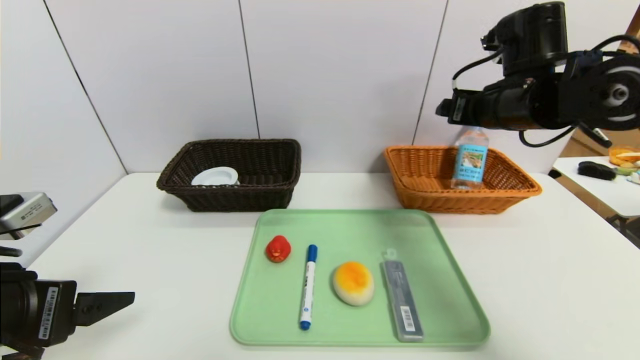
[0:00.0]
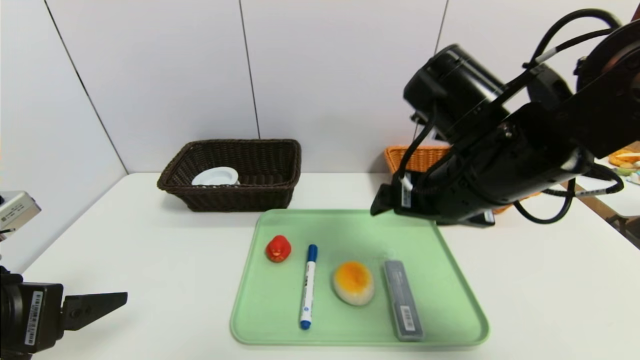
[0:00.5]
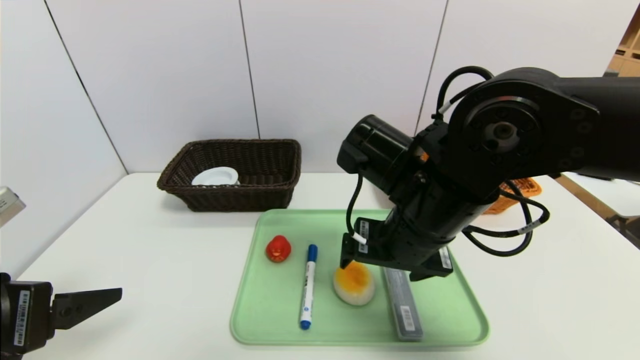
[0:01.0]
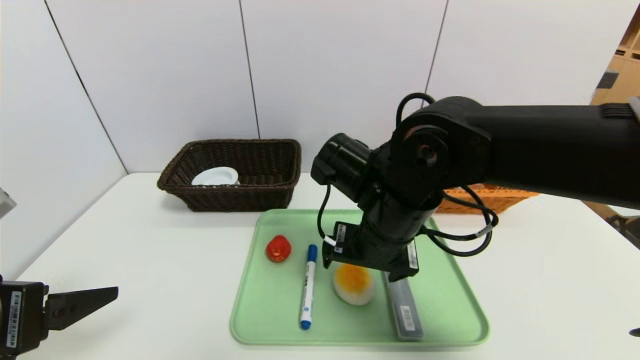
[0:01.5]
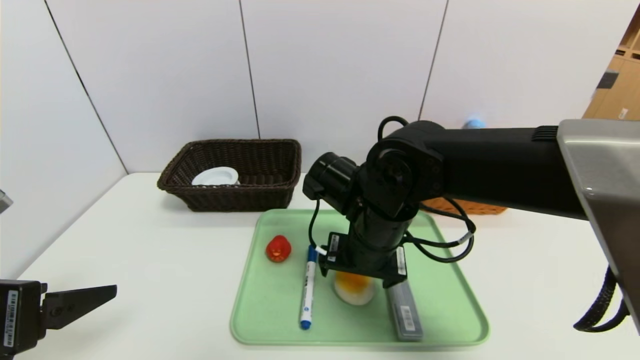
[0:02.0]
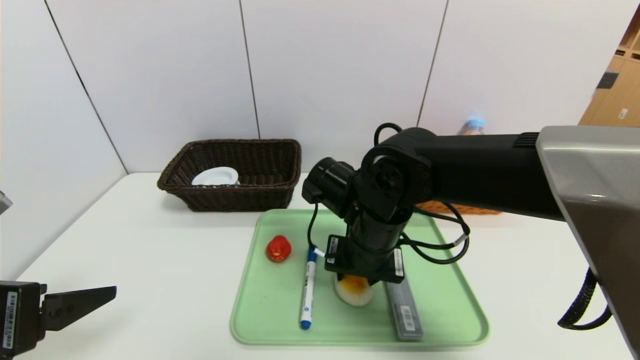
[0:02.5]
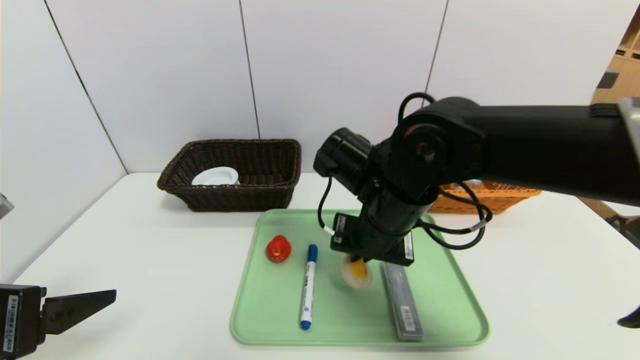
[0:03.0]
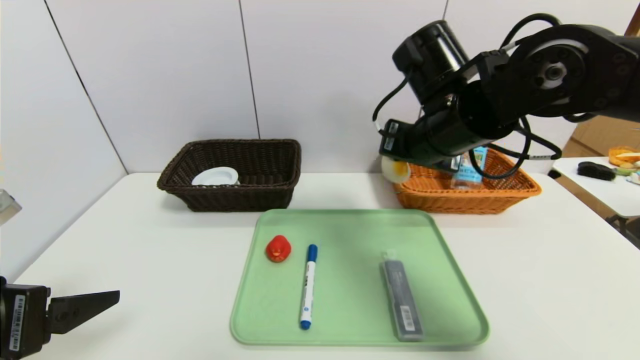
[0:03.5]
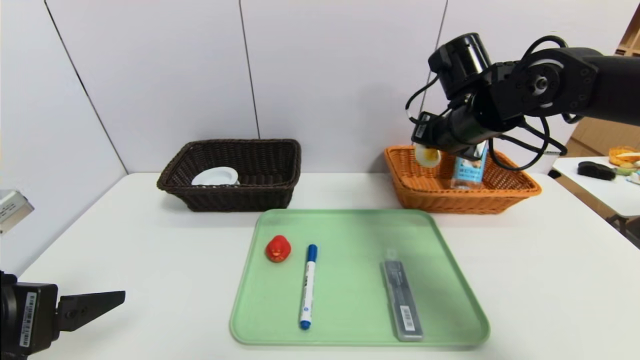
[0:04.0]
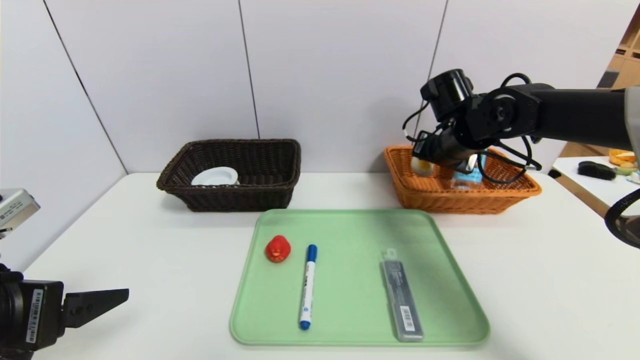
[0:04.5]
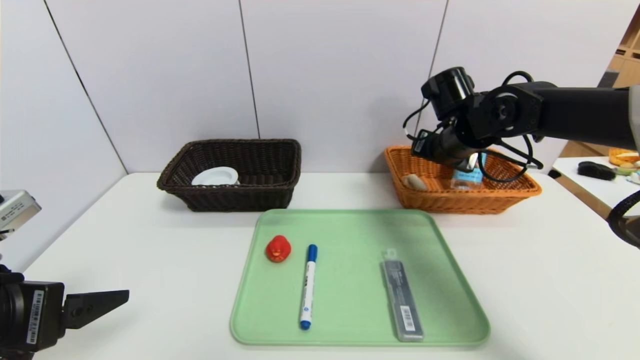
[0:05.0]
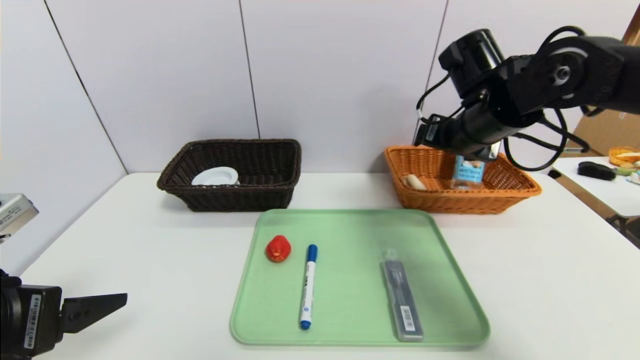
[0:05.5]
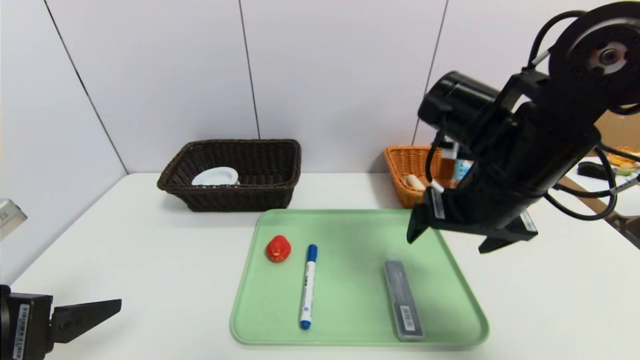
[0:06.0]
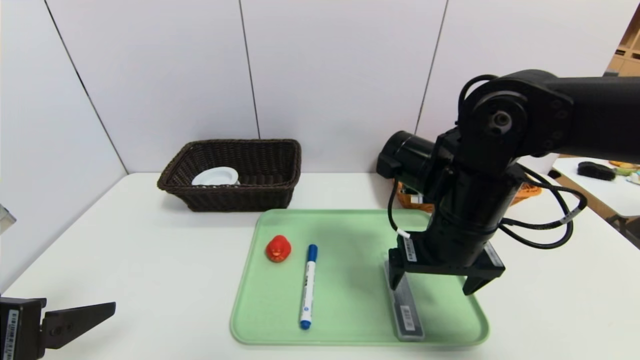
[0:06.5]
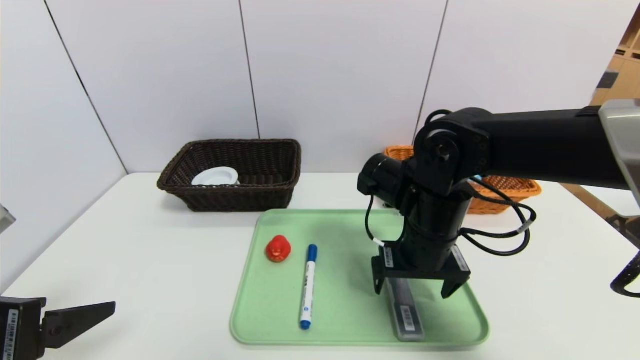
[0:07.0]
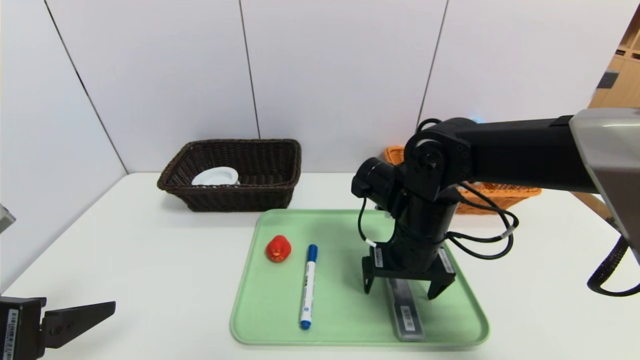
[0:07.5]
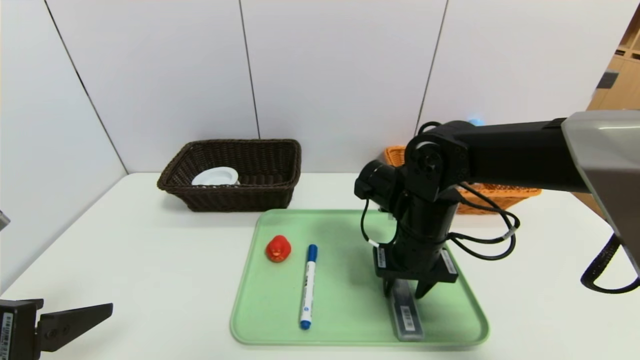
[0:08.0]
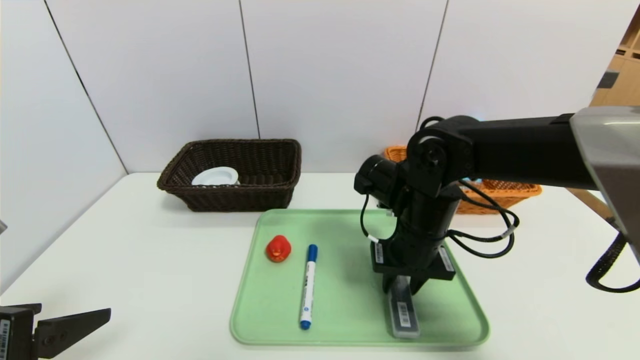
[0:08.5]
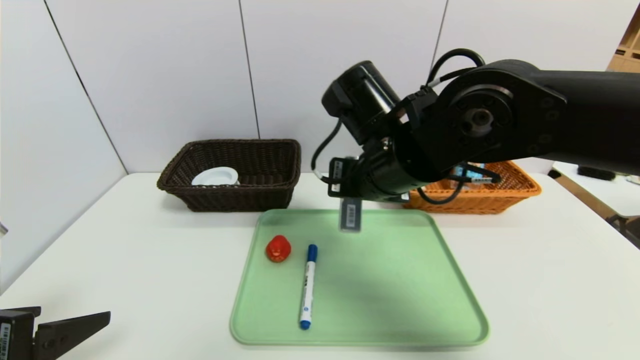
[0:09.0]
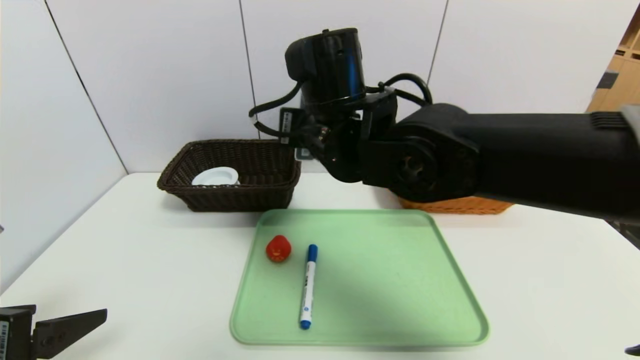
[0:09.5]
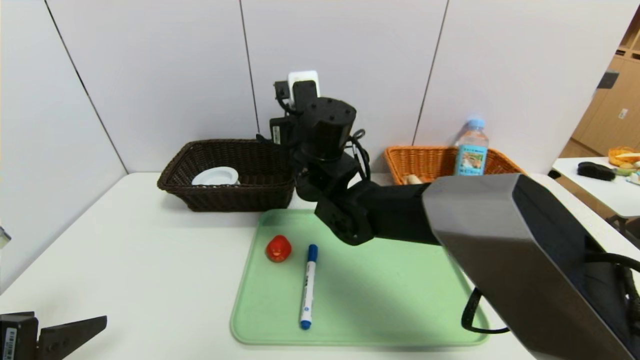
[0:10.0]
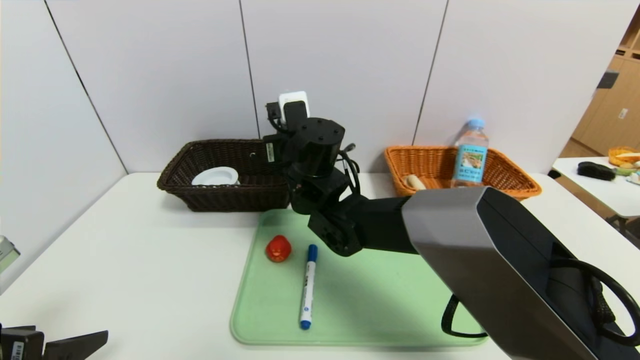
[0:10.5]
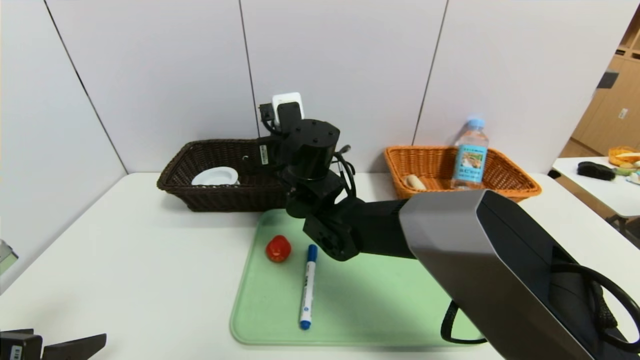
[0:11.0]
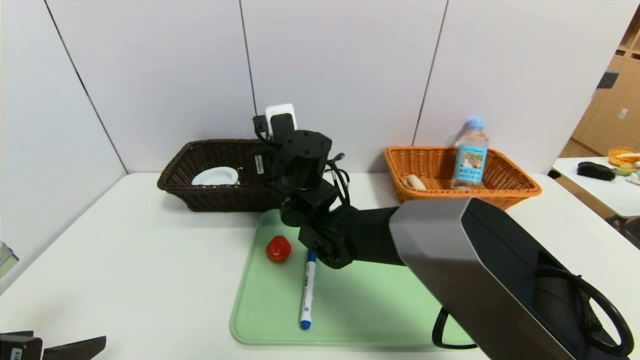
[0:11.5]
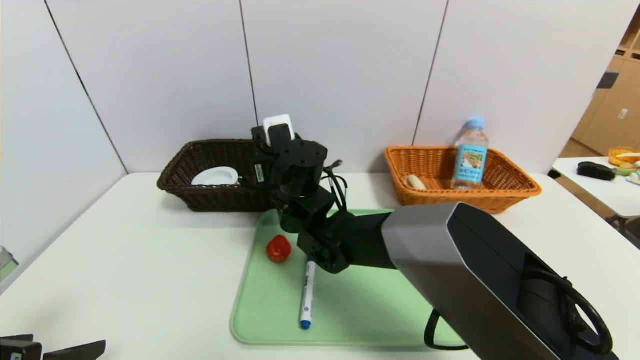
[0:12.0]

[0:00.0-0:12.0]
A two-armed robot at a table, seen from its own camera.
Task of the whole recording: place the food in the right basket with the right gripper, and place the non food items in the left basket with the left gripper.
Step, 0:00.0 to 0:05.0: Grasp the round bread and put it in the right basket.
0:00.0 to 0:02.0: The right gripper is displaced to the left and downward by about 20 cm.
0:02.0 to 0:04.0: The right gripper goes about 20 cm to the right, forward and upward, and closes.
0:04.0 to 0:06.0: The right gripper shifts roughly 10 cm backward, and opens.
0:06.0 to 0:08.0: The right gripper is displaced downward by approximately 10 cm, and closes its fingers.
0:08.0 to 0:10.0: The right gripper shifts some 15 cm to the left, forward and upward.
0:10.0 to 0:12.0: The right gripper heads downward, covering roughly 5 cm, and opens up.

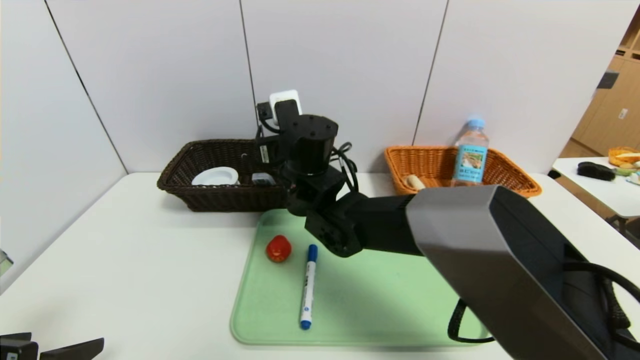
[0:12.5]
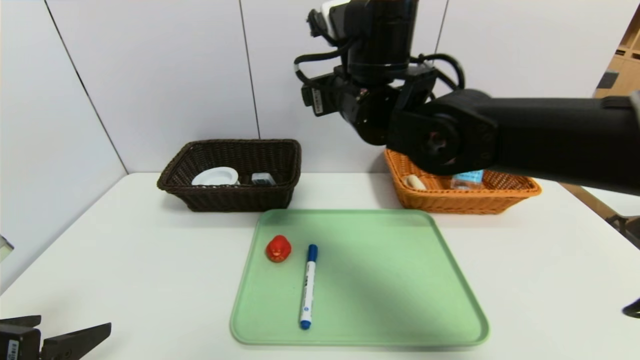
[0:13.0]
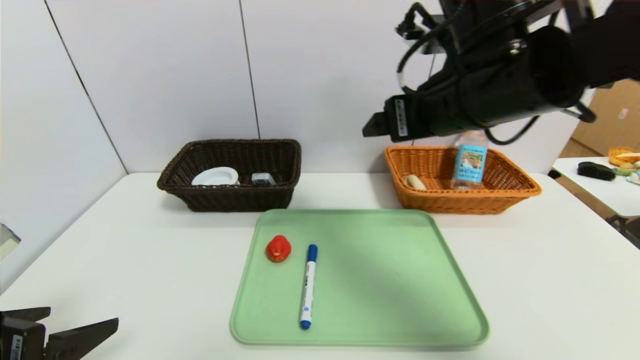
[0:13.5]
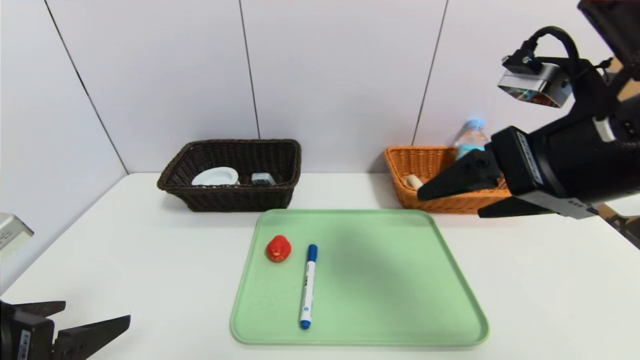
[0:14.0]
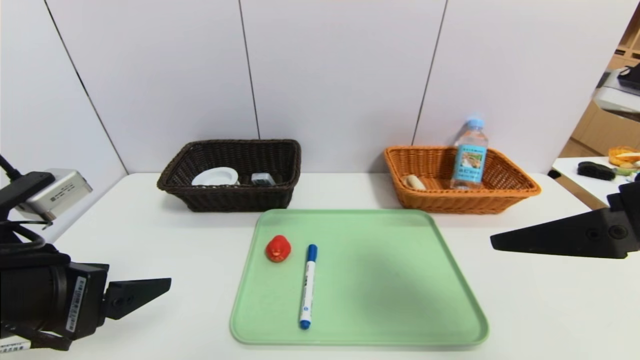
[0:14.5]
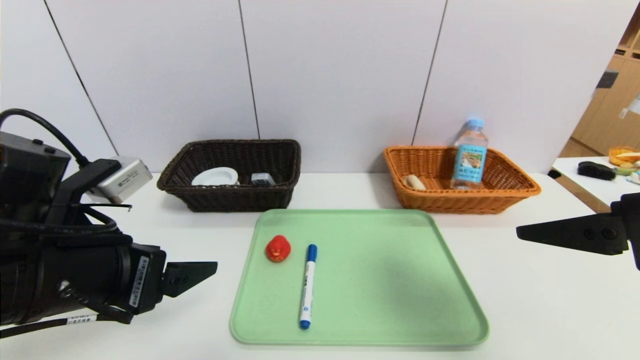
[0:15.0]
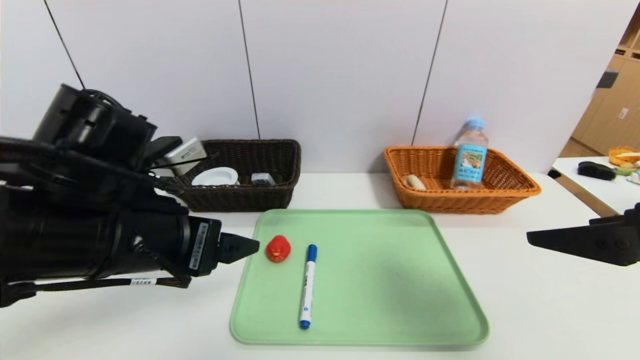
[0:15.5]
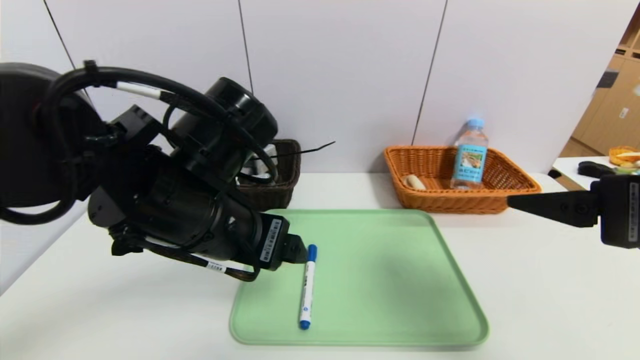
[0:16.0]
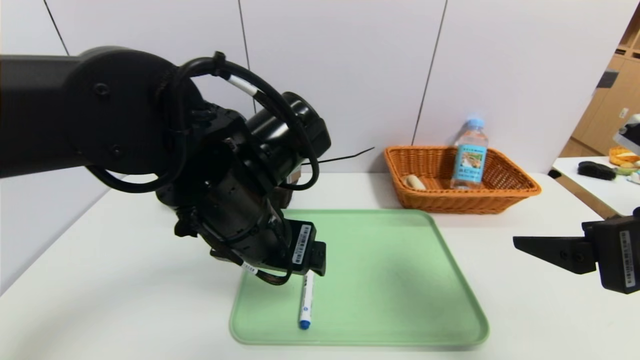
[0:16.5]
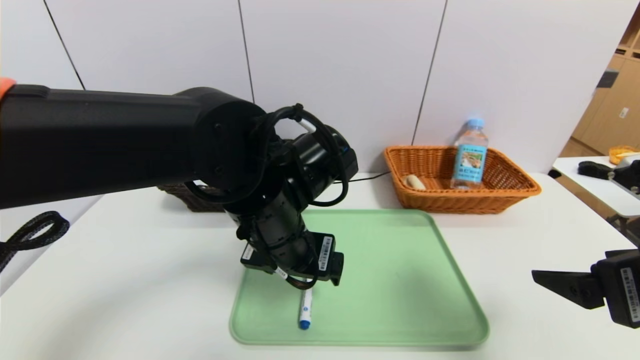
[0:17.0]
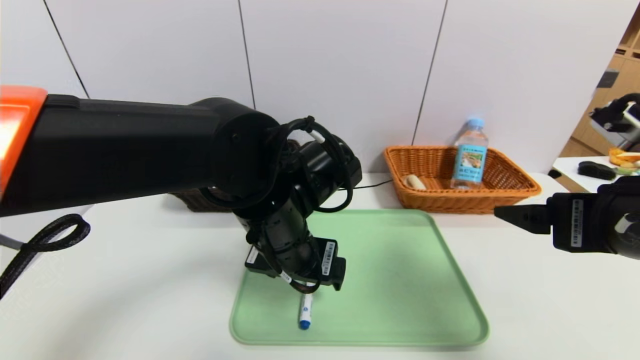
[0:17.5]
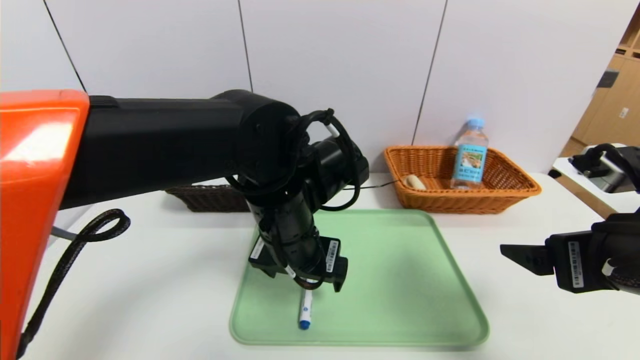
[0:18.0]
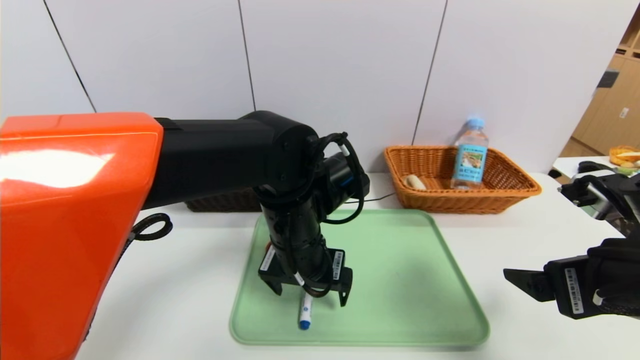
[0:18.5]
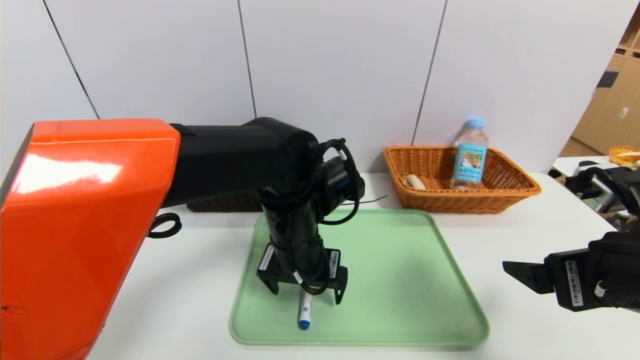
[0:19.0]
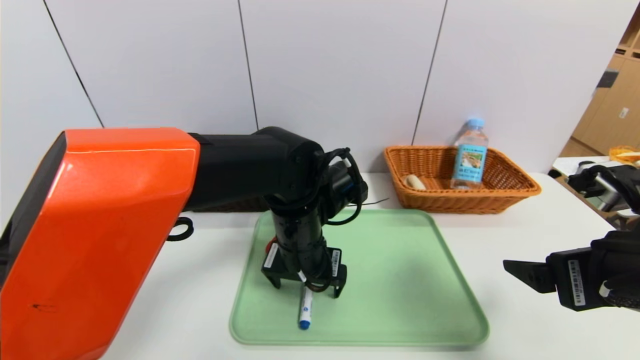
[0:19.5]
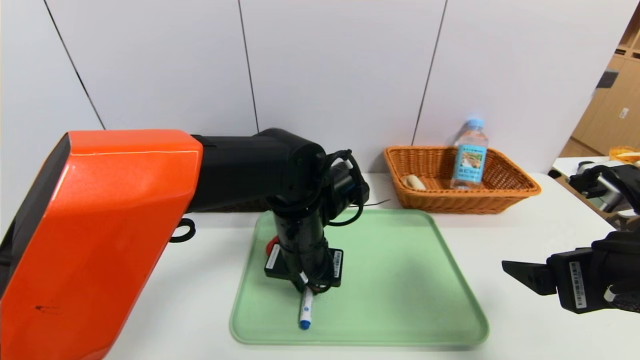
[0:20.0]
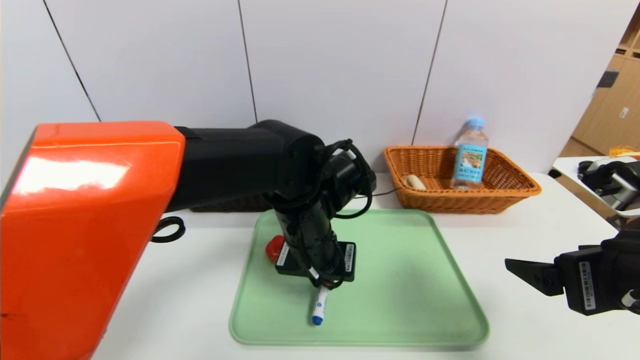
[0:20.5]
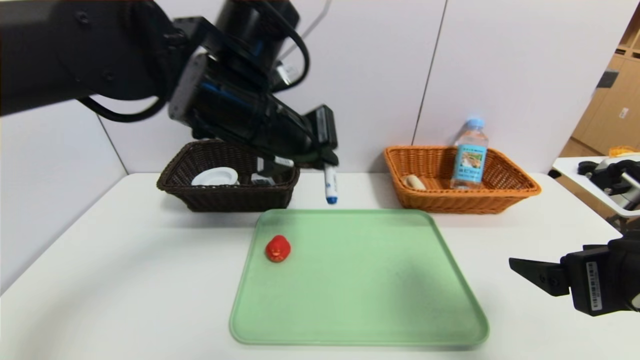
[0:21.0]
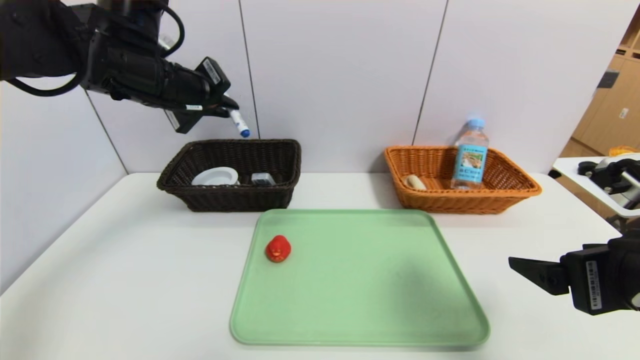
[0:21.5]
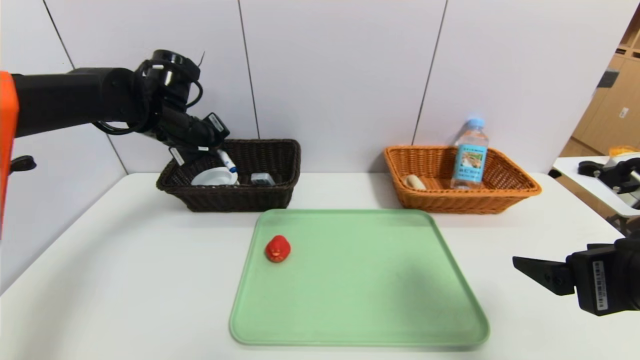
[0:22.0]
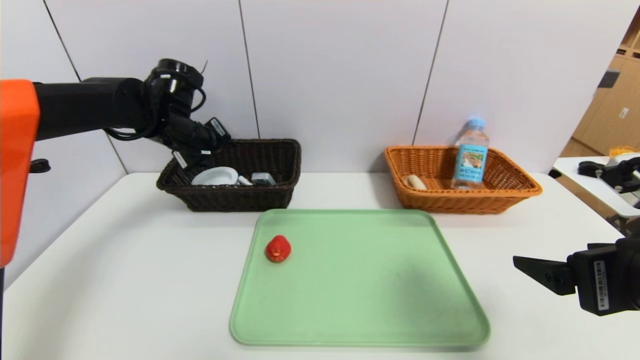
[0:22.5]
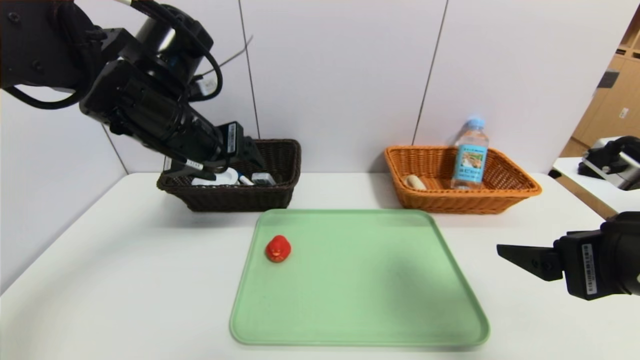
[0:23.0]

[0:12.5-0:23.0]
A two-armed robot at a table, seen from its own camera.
Task of the whole recording: place the food in the right basket with the right gripper, and place the non food items in the left basket with the left gripper.
0:12.5 to 0:14.5: The right gripper is displaced to the right and backward by approximately 35 cm. Meanwhile the left gripper ends up approximately 10 cm from where it was.
0:14.5 to 0:16.5: The left gripper heads to the right and forward, covering approximately 20 cm.
0:16.5 to 0:19.0: The right gripper changes place by roughly 5 cm. Meanwhile the left gripper moves downward and forward, some 10 cm.
0:19.0 to 0:21.0: The left gripper heads upward and to the left, covering about 15 cm, and closes its fingers.
0:21.0 to 0:23.0: The left gripper is displaced to the left by roughly 10 cm, and opens up.
